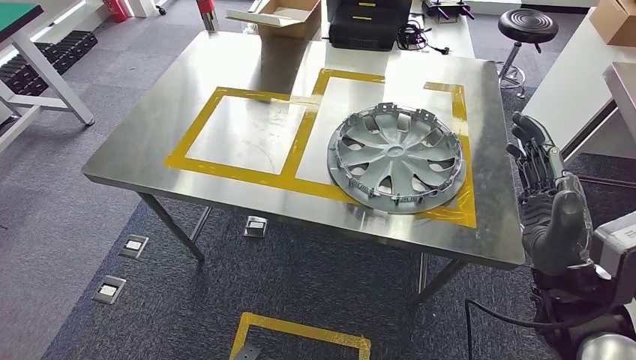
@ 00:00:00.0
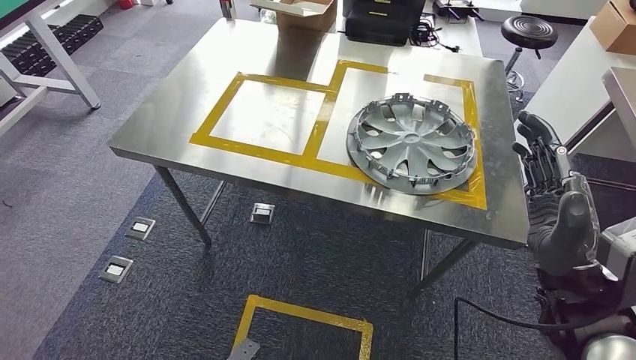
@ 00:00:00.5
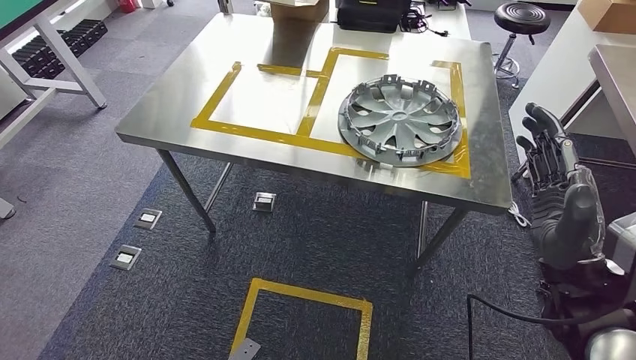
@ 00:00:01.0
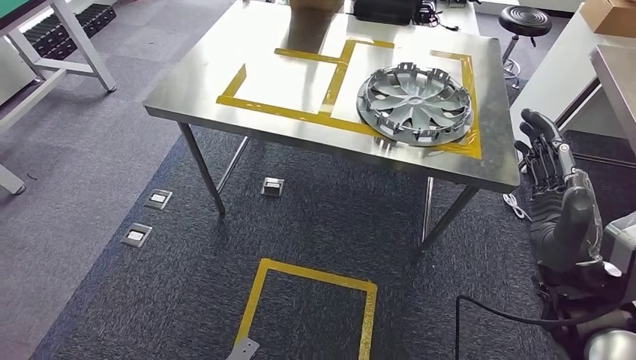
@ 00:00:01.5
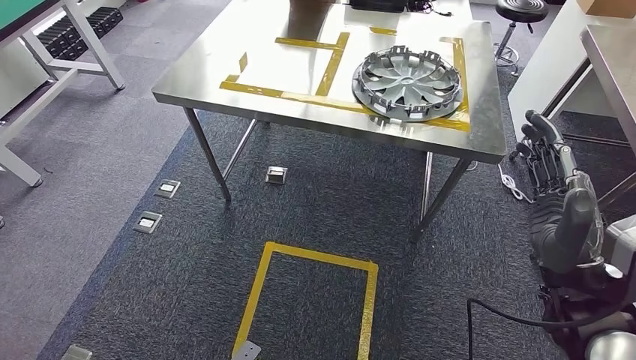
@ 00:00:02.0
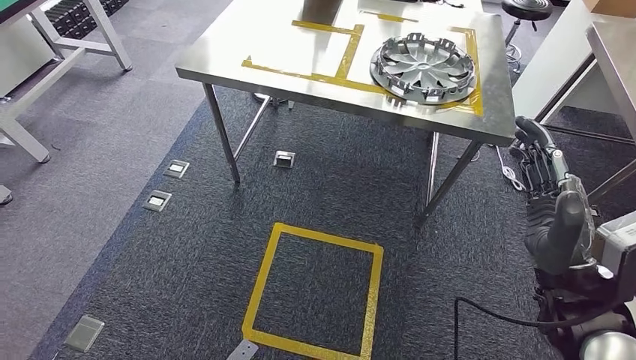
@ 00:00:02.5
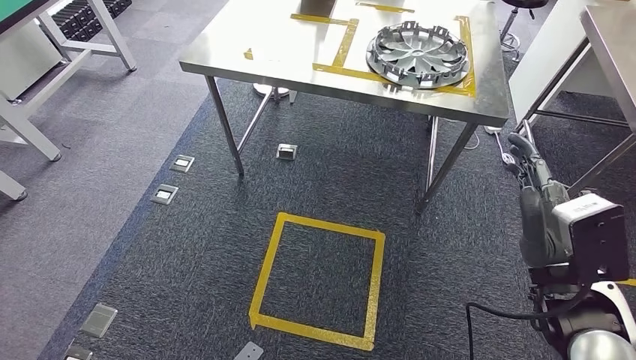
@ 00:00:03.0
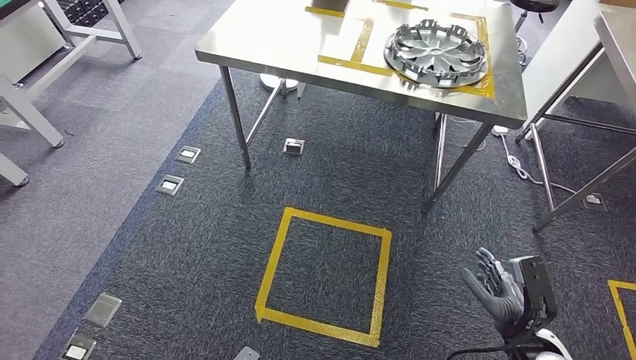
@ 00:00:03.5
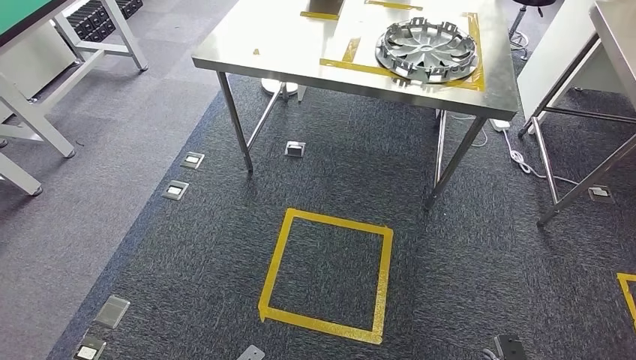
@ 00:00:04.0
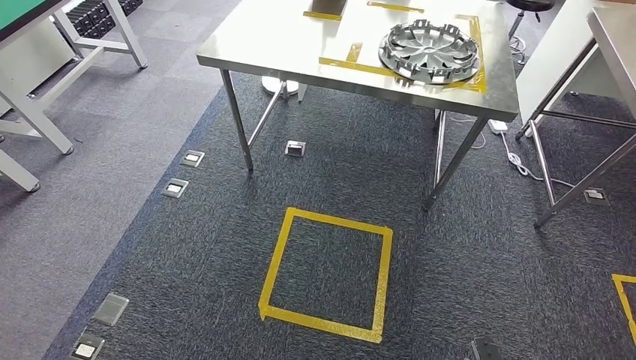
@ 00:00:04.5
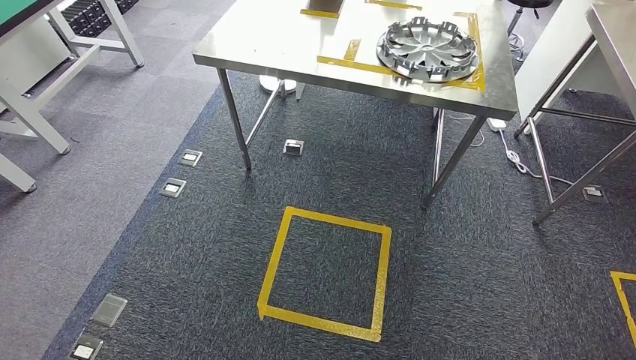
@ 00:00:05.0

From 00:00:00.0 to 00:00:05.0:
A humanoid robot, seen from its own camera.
Step, from 00:00:01.0 to 00:00:05.0: Return to the initial position at the shelf.
